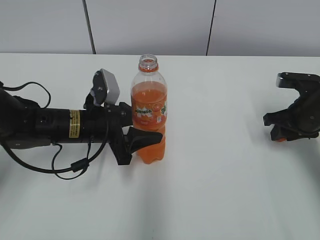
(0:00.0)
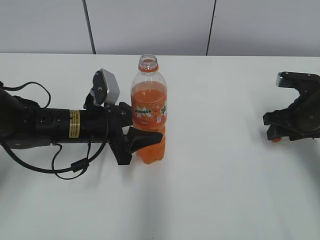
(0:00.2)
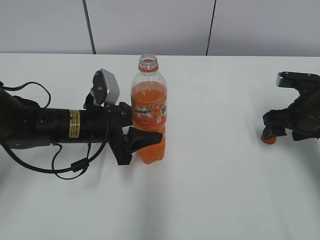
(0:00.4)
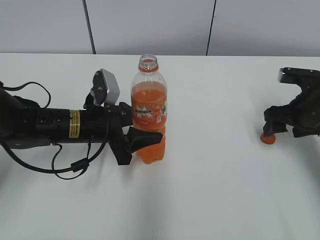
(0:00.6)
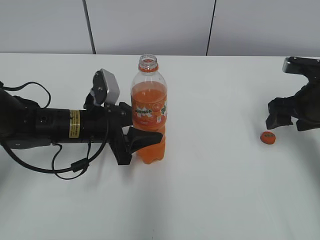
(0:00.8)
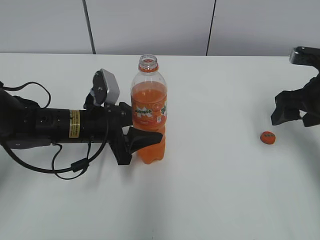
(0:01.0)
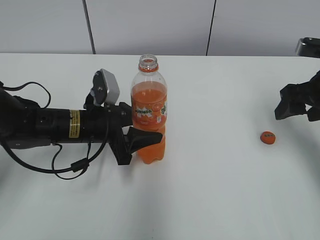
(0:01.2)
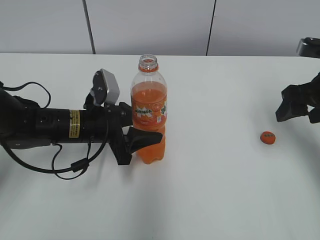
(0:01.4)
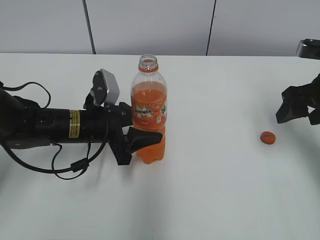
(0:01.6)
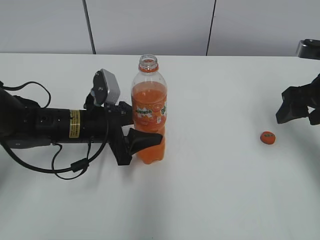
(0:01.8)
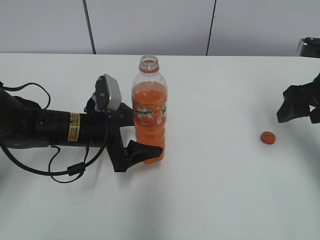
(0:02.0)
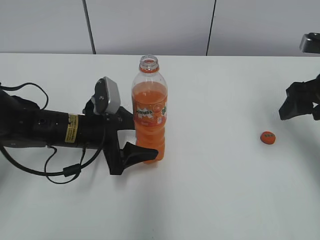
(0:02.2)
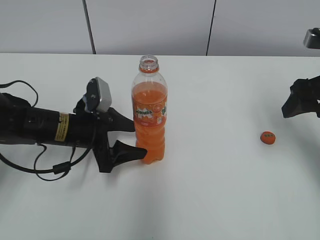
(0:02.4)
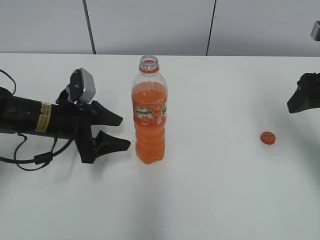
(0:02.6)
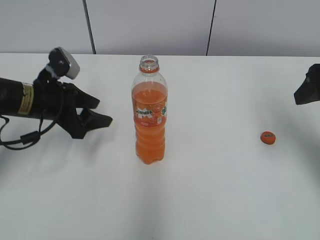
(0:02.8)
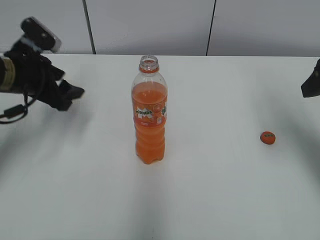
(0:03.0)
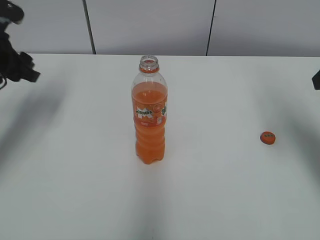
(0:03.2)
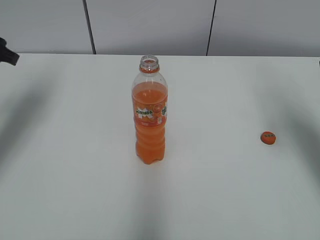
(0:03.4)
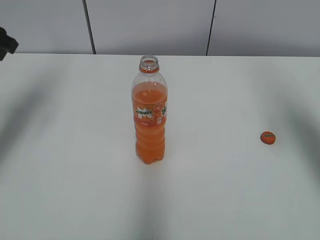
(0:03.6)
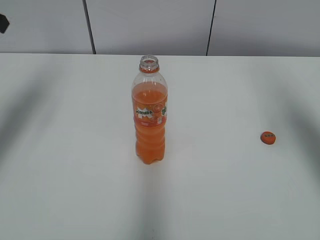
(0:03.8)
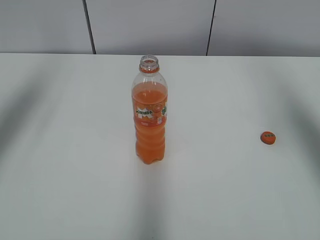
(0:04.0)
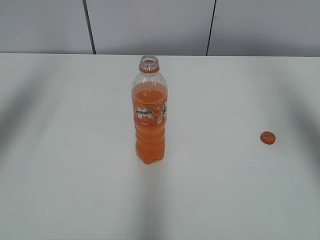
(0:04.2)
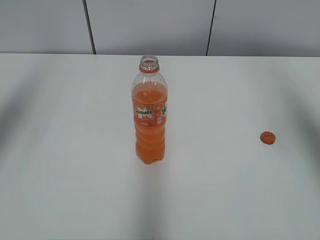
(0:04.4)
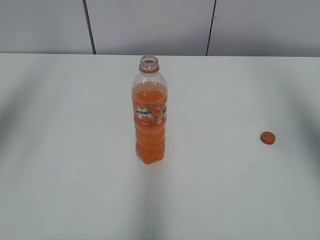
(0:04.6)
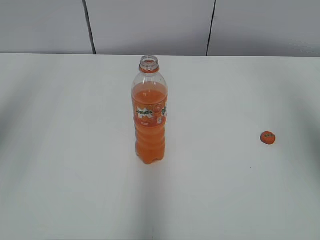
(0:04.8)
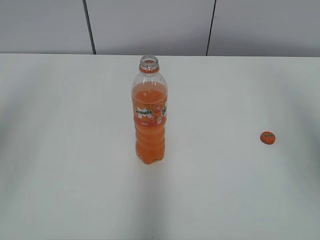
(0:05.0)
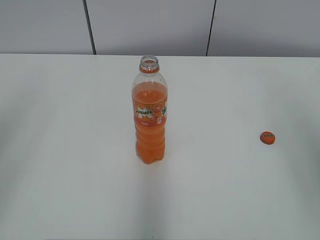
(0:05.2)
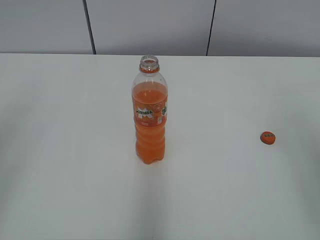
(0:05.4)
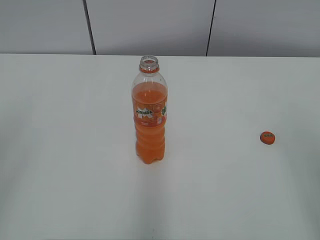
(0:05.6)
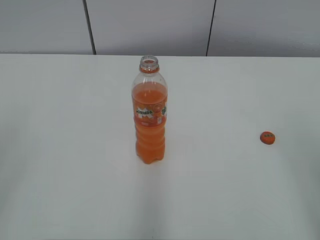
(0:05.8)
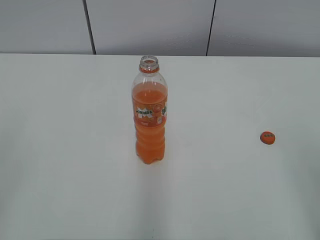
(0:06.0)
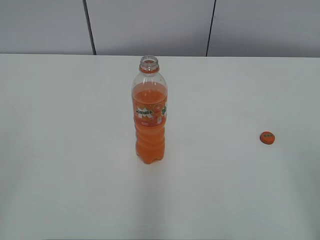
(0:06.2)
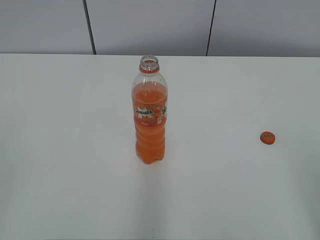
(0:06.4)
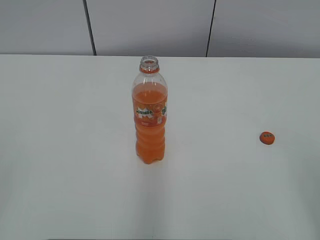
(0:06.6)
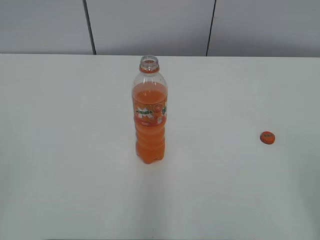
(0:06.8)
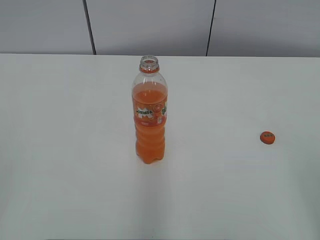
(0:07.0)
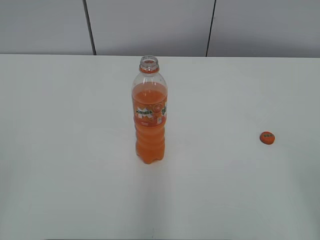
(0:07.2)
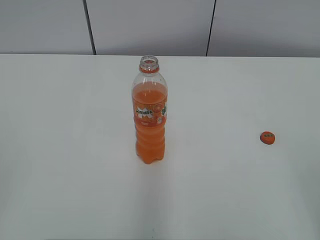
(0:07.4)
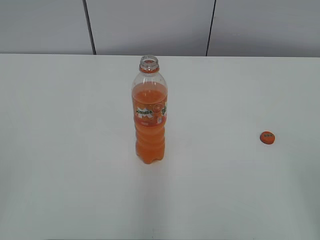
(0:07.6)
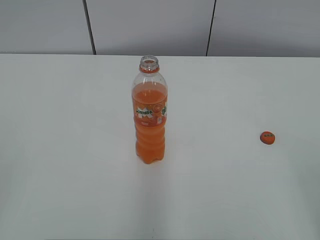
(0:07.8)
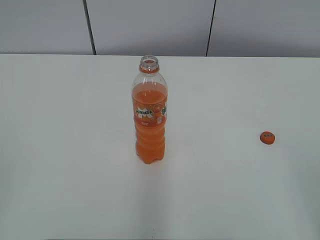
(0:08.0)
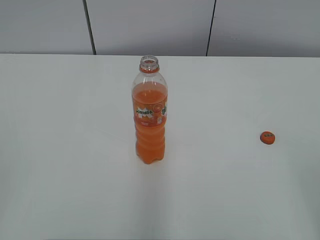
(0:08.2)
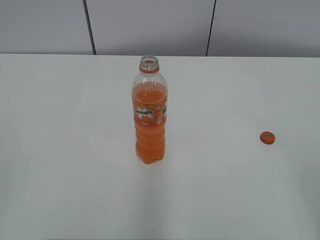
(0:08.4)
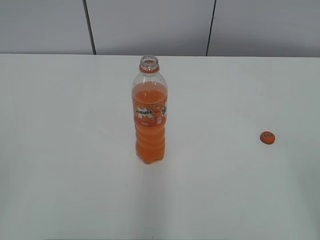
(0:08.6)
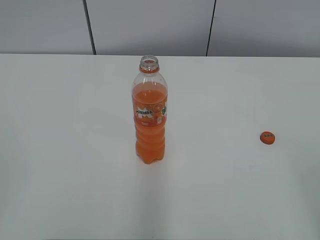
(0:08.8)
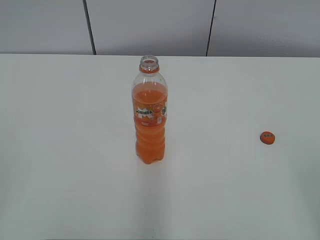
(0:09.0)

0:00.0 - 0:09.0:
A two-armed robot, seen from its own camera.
0:00.0 - 0:01.6: The right gripper goes approximately 10 cm upward, and opens up.
0:01.6 - 0:03.0: The left gripper is displaced to the left and upward by some 15 cm, and opens, then closes again; the right gripper travels upward by about 5 cm.
0:03.0 - 0:04.4: The grippers both shift upward by roughly 20 cm.
0:04.4 - 0:06.0: The grippers both shift backward and downward by approximately 25 cm.
0:07.6 - 0:09.0: Both grippers stay put.

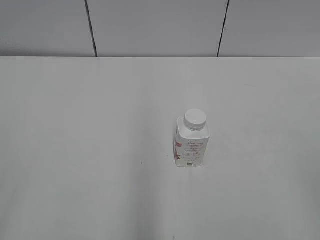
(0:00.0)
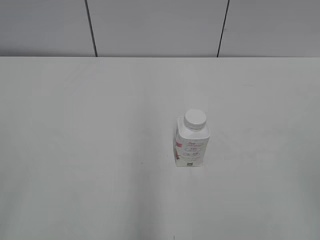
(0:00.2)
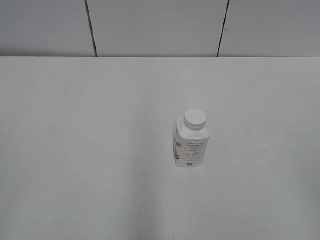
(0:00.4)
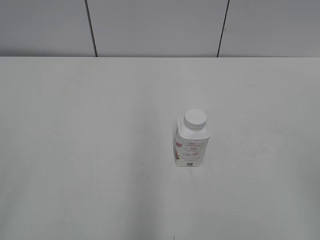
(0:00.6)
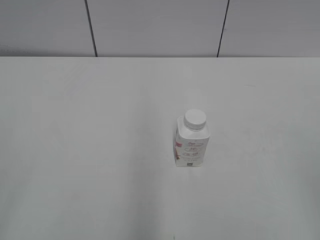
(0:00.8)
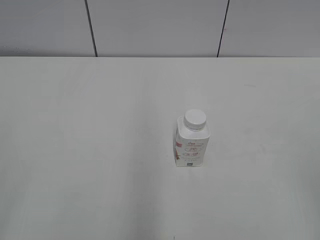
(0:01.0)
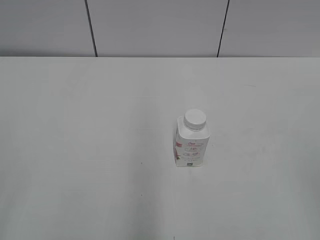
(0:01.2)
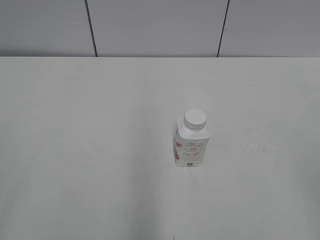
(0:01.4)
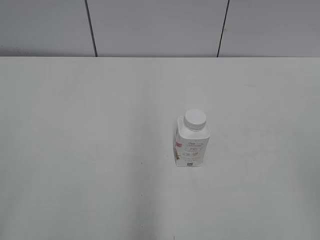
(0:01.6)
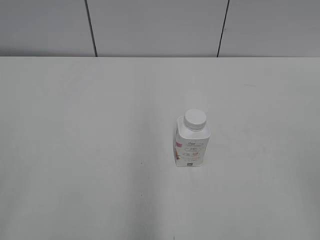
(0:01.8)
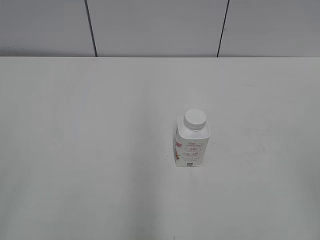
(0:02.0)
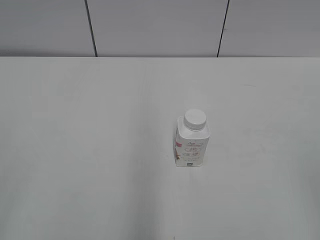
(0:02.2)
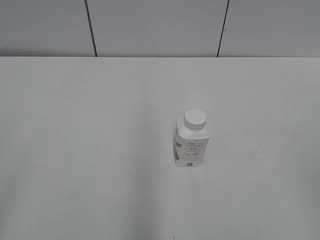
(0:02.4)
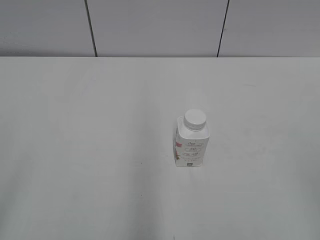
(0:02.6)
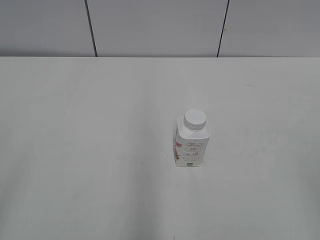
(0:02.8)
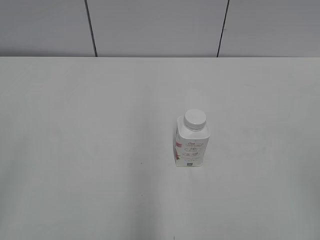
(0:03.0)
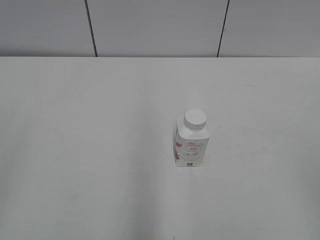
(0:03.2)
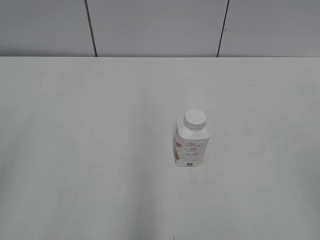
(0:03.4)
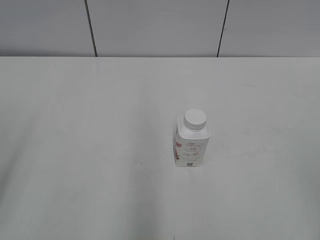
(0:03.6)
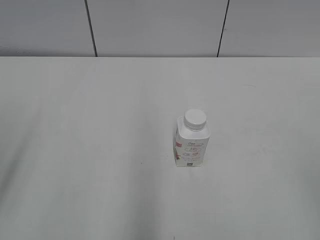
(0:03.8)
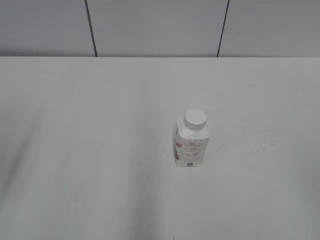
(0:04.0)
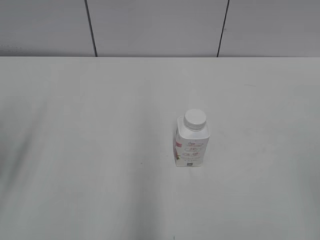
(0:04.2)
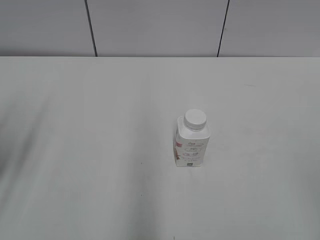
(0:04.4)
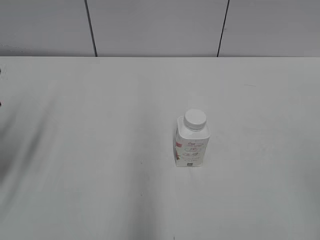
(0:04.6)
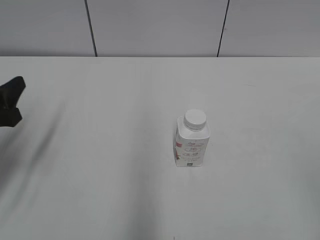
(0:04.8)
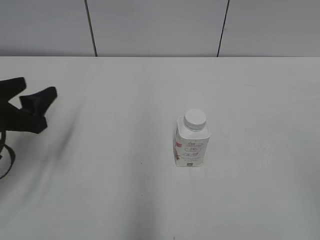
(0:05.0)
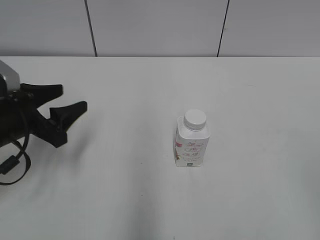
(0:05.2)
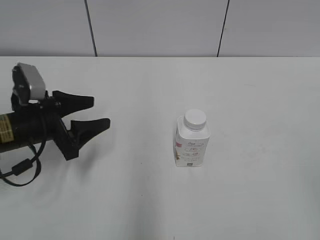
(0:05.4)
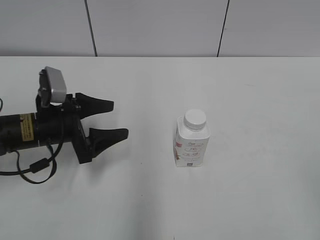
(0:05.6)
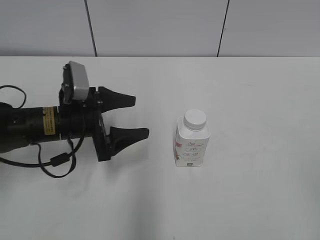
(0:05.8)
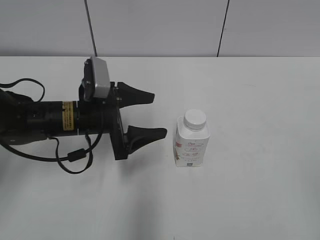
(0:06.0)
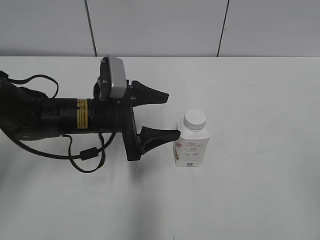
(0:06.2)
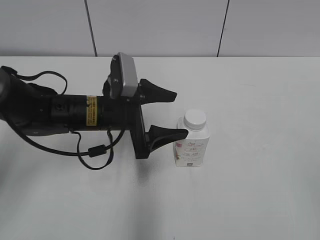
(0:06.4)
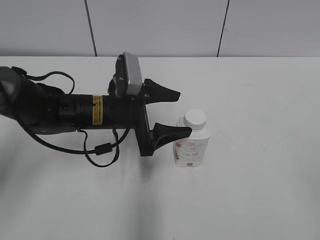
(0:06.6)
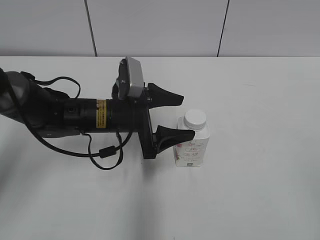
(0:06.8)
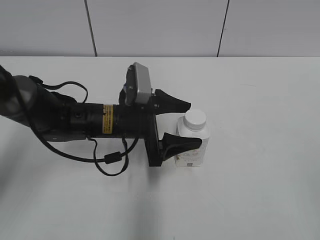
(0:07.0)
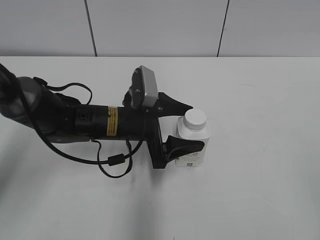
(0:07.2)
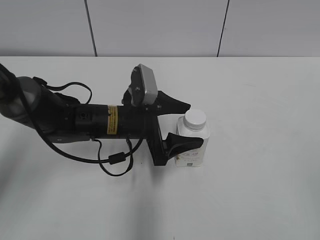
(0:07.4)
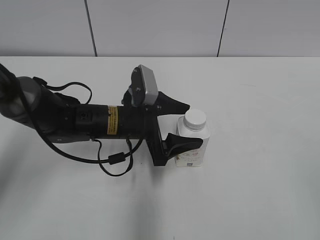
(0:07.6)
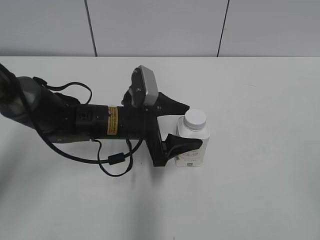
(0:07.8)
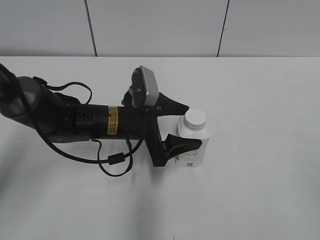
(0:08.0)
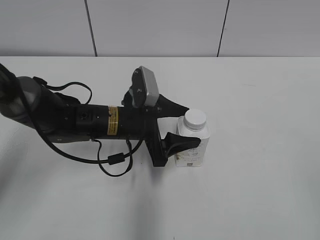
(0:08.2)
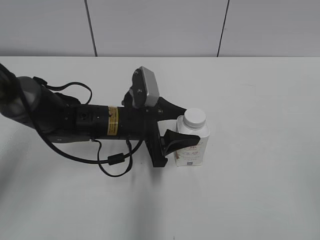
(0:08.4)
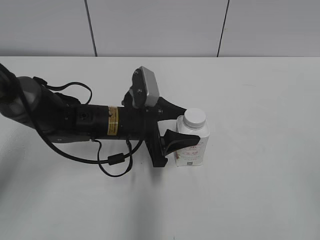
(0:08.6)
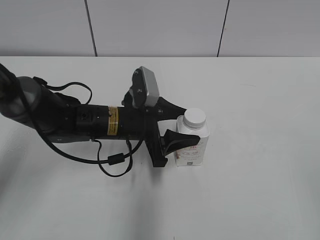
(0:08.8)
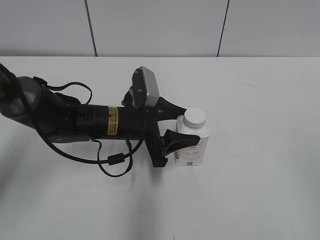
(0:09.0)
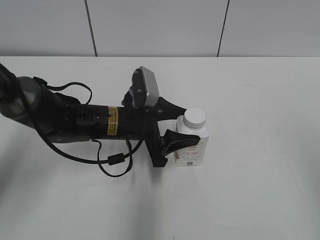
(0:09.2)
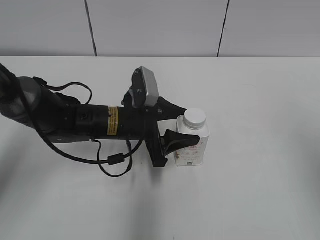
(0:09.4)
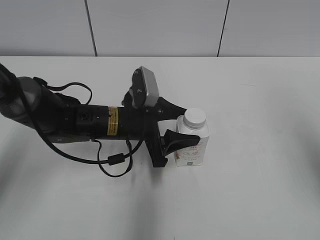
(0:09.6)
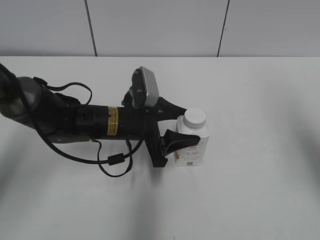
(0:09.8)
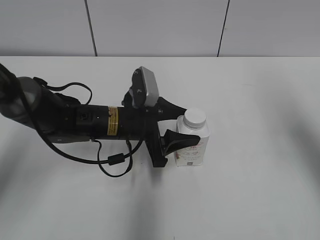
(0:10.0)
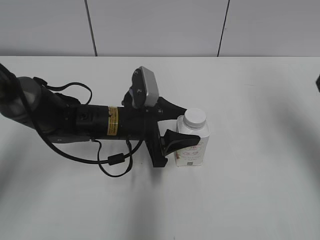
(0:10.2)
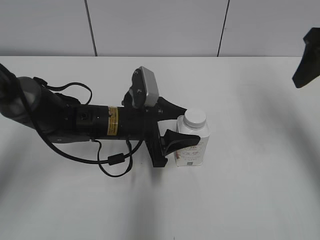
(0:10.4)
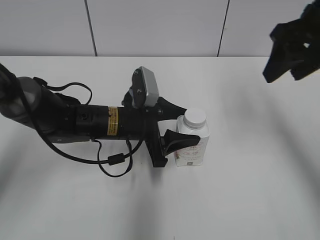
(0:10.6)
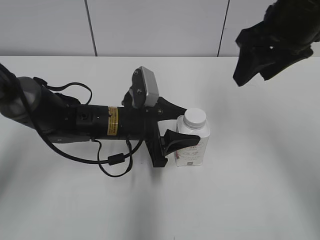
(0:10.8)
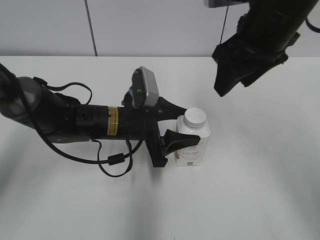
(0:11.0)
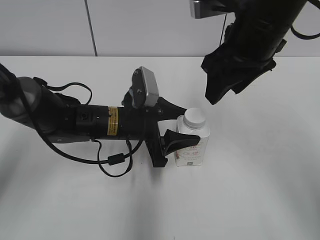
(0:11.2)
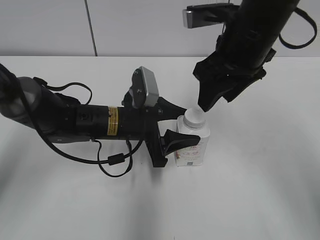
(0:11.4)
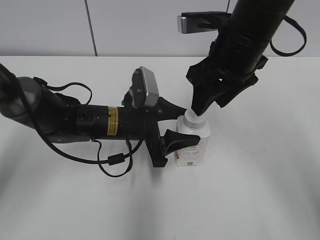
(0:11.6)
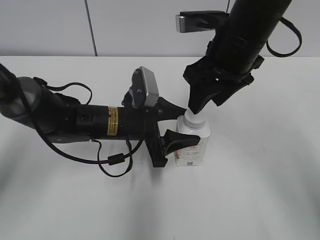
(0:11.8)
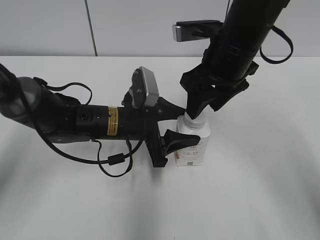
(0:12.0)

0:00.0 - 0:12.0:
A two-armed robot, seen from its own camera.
Step, 0:00.0 - 0:09.4: Grab the Yili Changqing with the left hand.
0:03.0 - 0:04.4: The left gripper moves forward and downward, approximately 20 cm.
0:04.4 - 0:06.0: The left gripper goes roughly 25 cm to the right, forward and downward.
0:06.0 - 0:07.6: The left gripper heads to the right, covering some 5 cm.
0:07.6 - 0:09.0: The left gripper closes its fingers.
0:09.0 - 0:10.4: The right gripper moves forward, about 30 cm.
0:10.4 - 0:12.0: The right gripper moves to the left, roughly 15 cm, and closes.

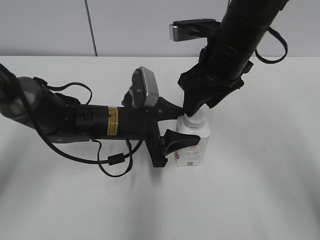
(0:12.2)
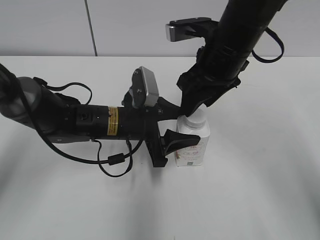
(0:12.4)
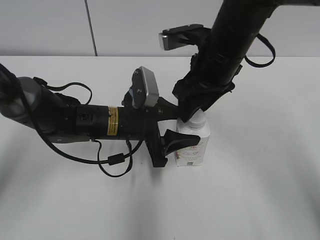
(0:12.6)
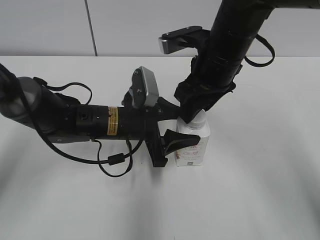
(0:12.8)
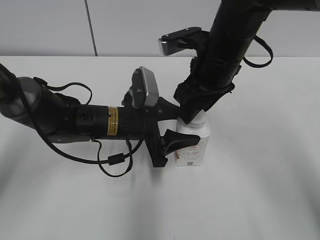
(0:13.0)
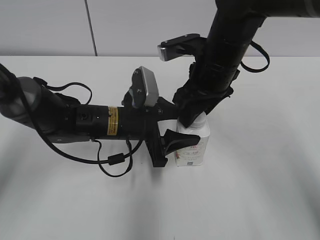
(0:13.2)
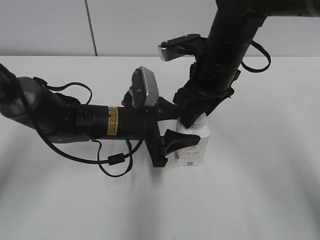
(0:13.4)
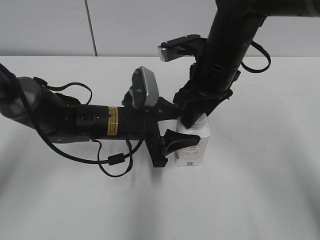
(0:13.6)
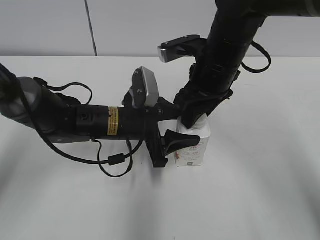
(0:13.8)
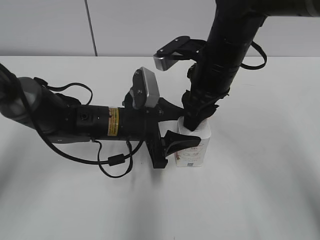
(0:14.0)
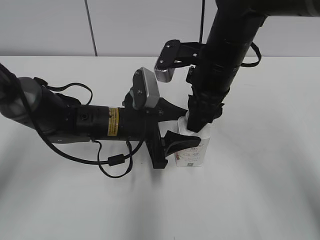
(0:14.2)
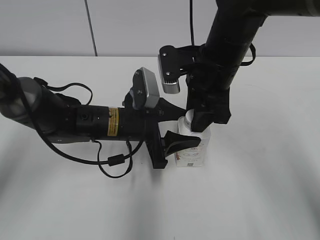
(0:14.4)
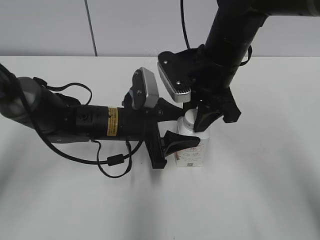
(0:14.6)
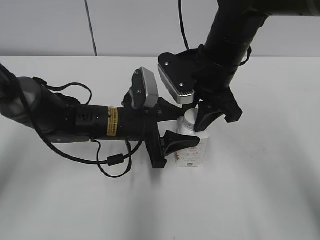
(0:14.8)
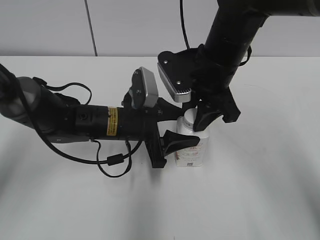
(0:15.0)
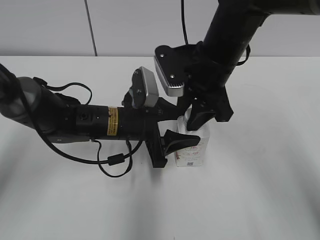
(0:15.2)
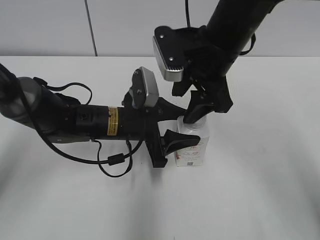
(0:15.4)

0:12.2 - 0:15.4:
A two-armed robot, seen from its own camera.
0:12.2 - 0:13.8: The right gripper closes.
0:13.8 - 0:15.4: The right gripper opens up.
